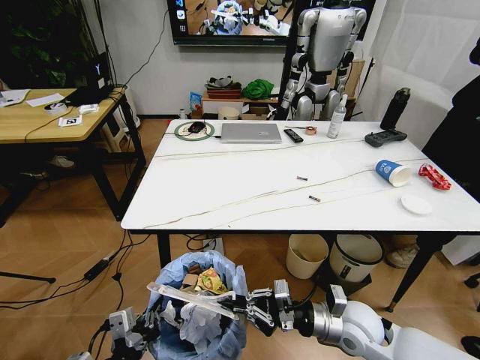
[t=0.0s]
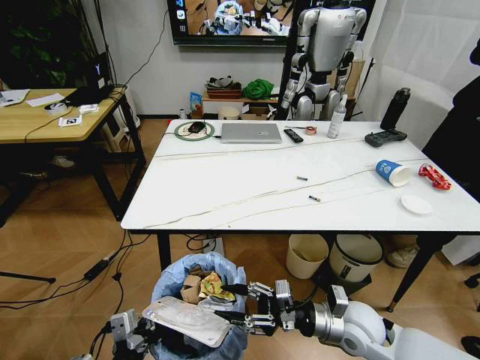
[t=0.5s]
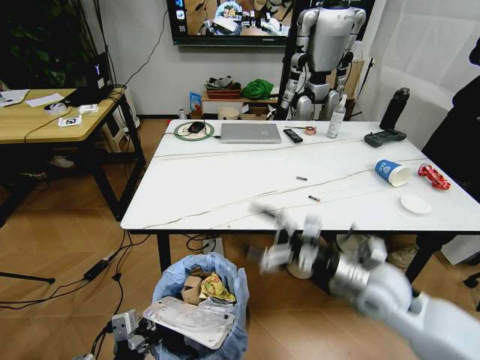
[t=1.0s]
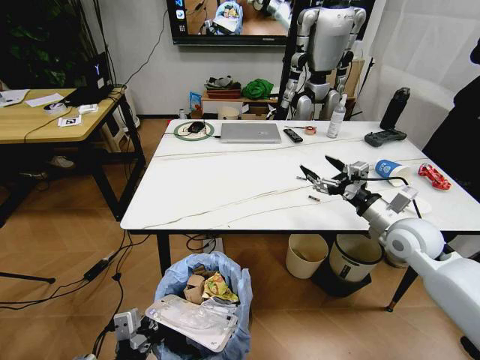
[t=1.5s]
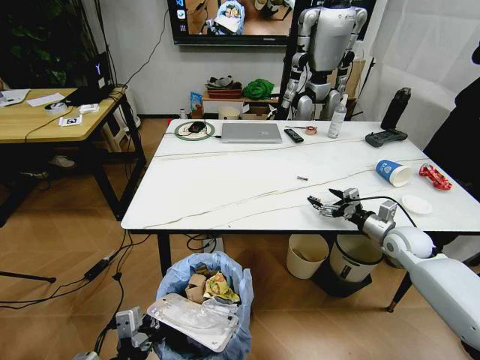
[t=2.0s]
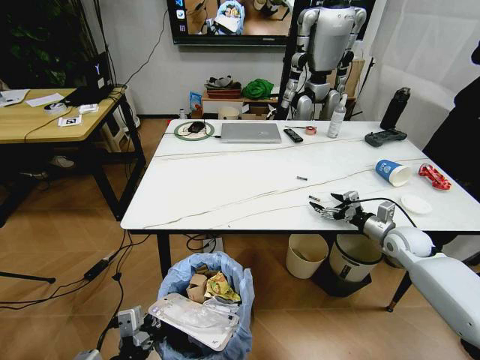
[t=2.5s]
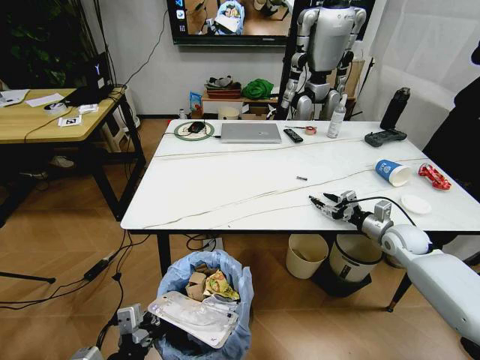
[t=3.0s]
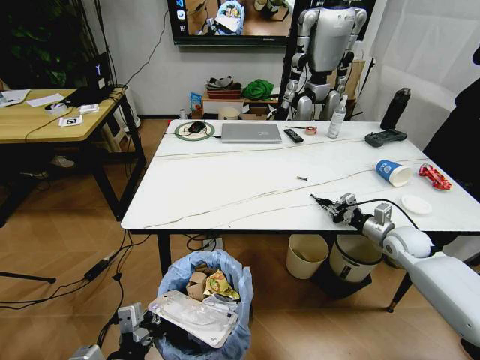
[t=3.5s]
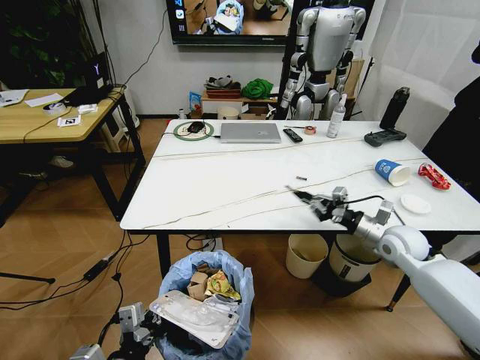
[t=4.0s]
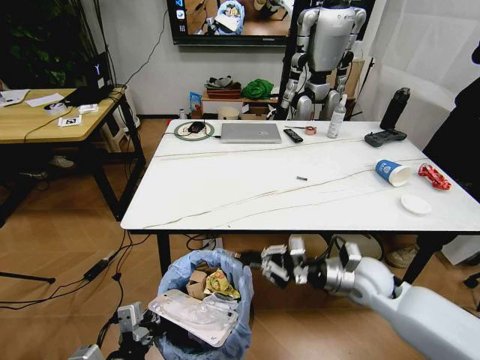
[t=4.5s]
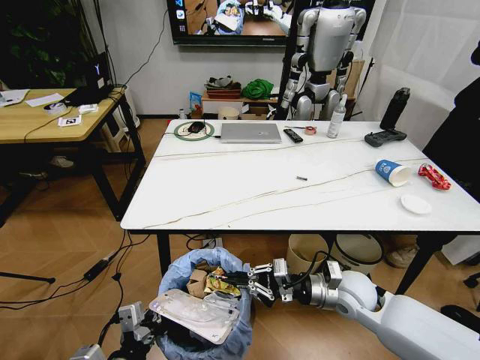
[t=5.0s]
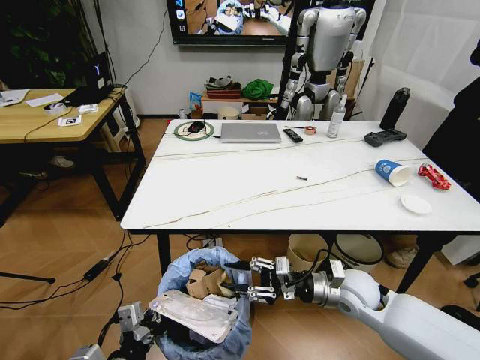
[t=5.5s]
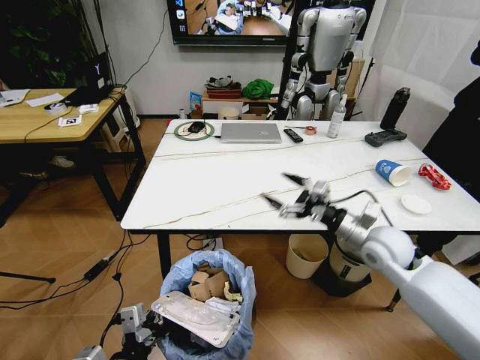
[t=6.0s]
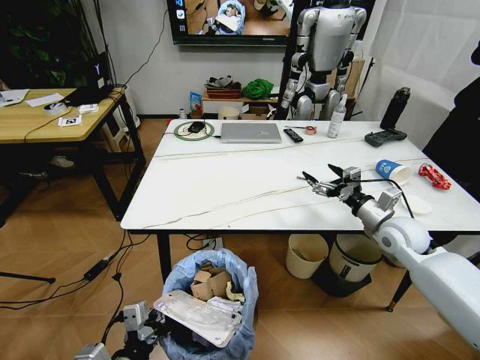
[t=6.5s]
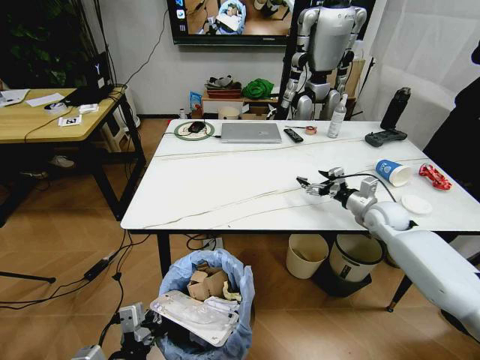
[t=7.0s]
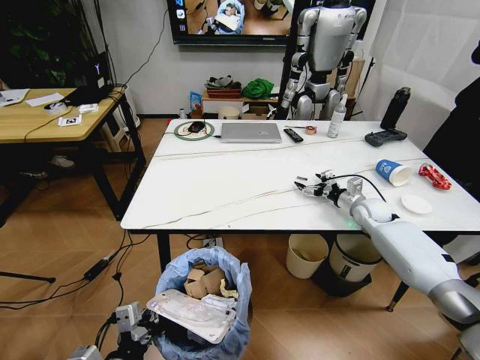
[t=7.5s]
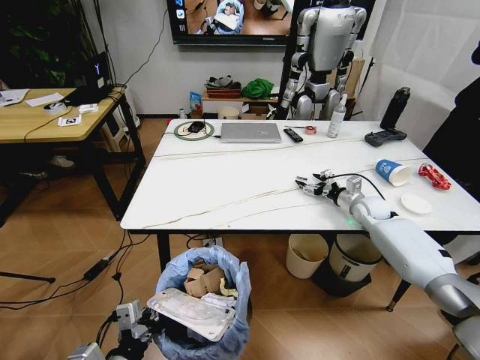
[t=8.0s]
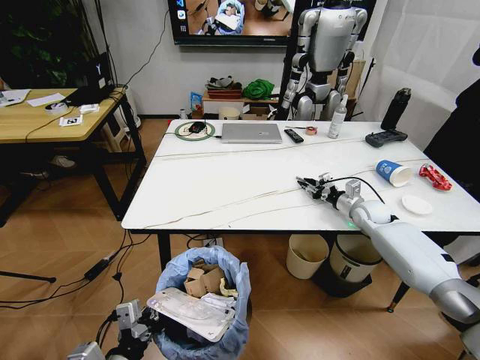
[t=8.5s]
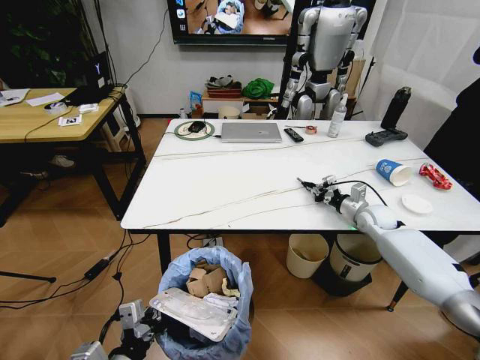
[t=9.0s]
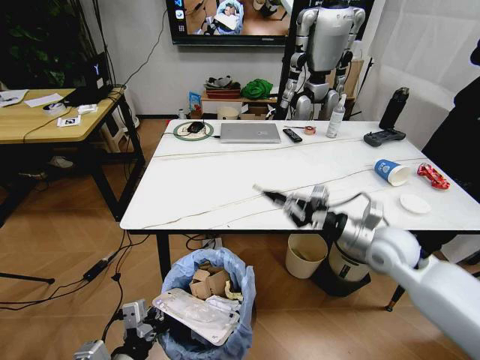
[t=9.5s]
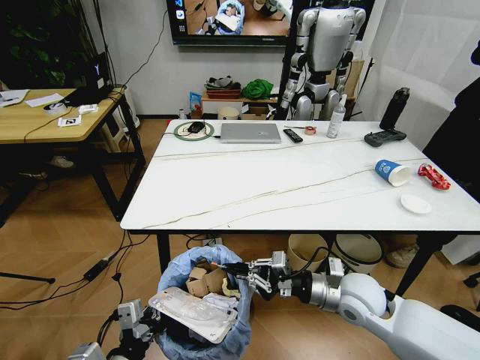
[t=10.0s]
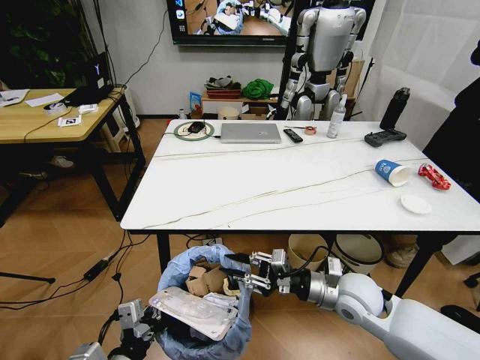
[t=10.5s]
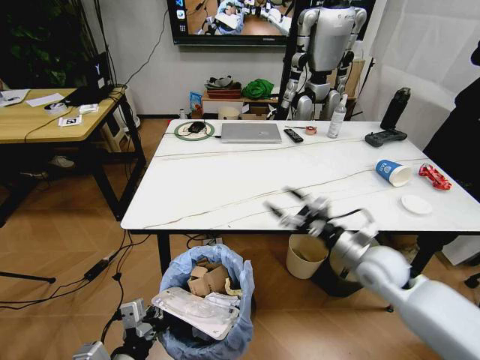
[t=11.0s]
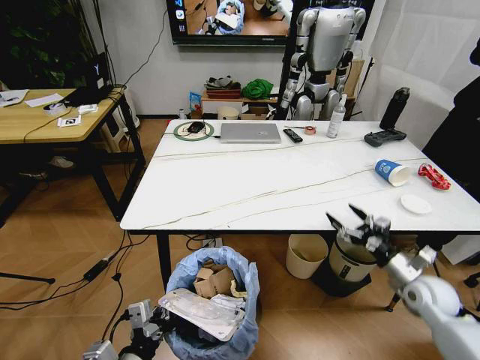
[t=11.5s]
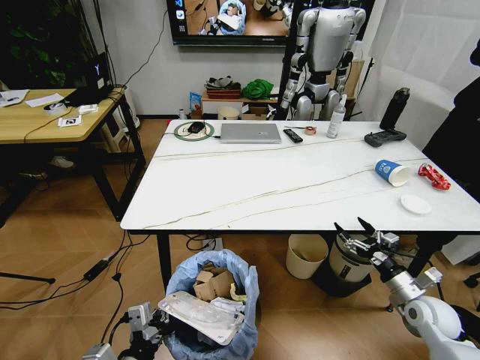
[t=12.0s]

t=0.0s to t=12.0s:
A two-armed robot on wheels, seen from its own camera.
Task of the whole recording: Pick up the trash bin and place the trash from the table into it.
t=0.0s to t=2.0s: The right gripper shifts roughly 25 cm to the right and forward, and opens up.
t=2.0s to t=4.0s: The right gripper moves to the left, approximately 5 cm, and closes up.
t=4.0s to t=6.0s: The right gripper travels to the left by some 5 cm, and opens up.
t=6.0s to t=8.0s: The right gripper heads forward, to the right and downward, covering approximately 20 cm.
t=8.0s to t=10.0s: The right gripper heads backward and to the left, covering some 30 cm, and closes its fingers.
t=10.0s to t=12.0s: The right gripper heads to the right and downward, covering some 20 cm, and opens.

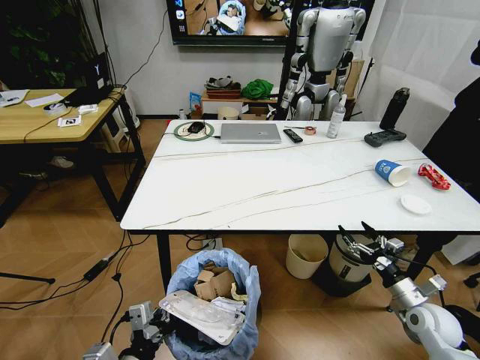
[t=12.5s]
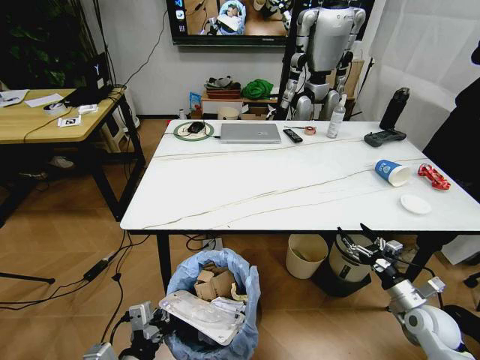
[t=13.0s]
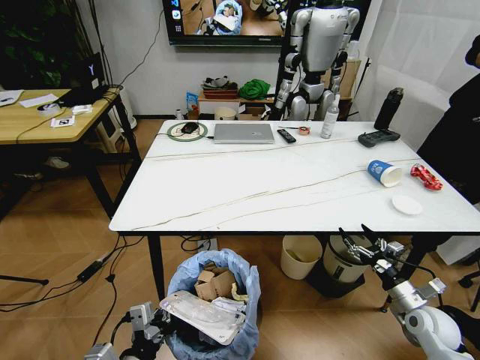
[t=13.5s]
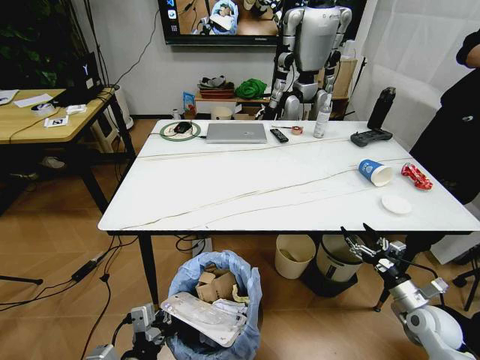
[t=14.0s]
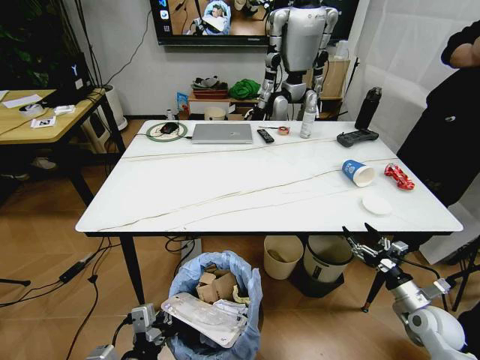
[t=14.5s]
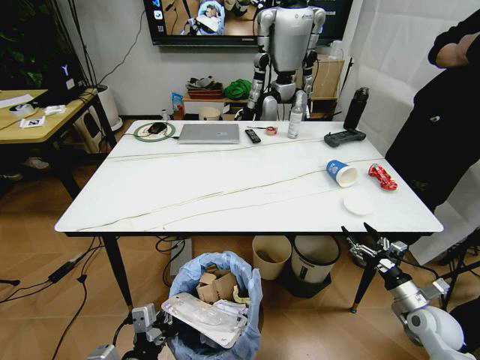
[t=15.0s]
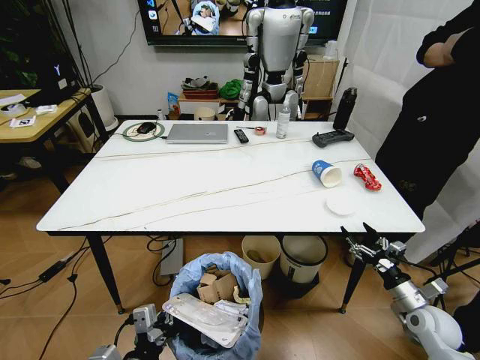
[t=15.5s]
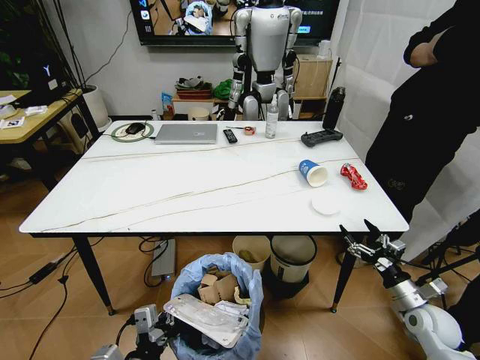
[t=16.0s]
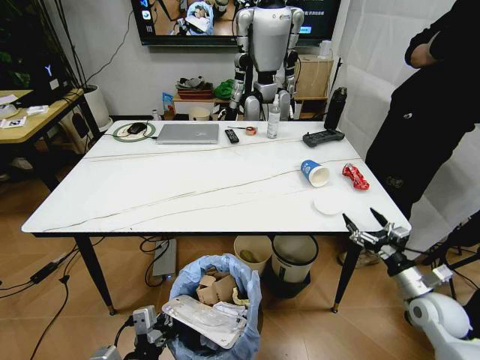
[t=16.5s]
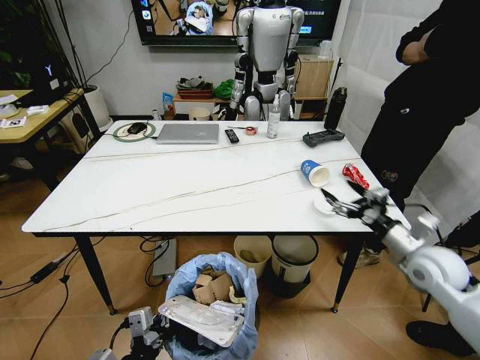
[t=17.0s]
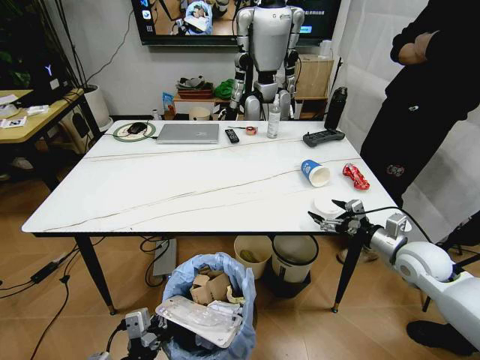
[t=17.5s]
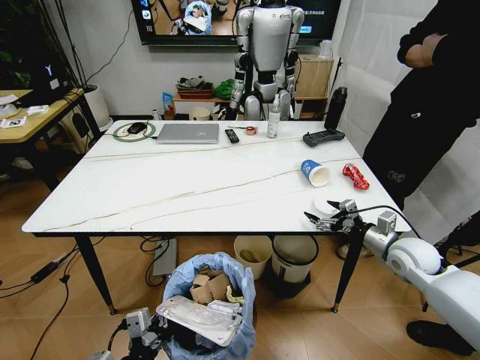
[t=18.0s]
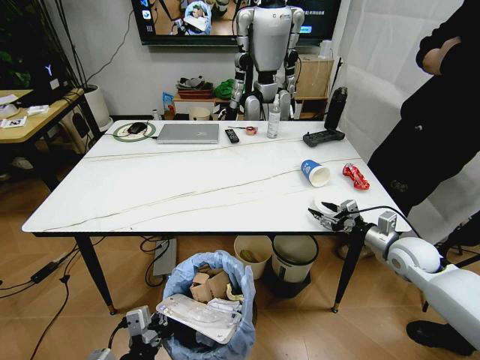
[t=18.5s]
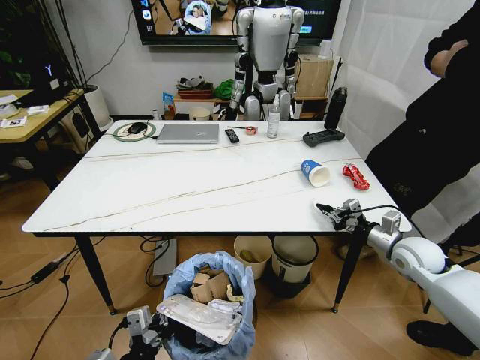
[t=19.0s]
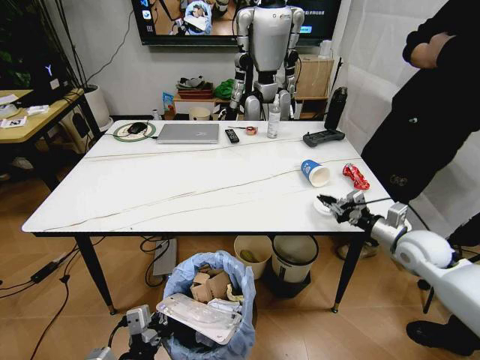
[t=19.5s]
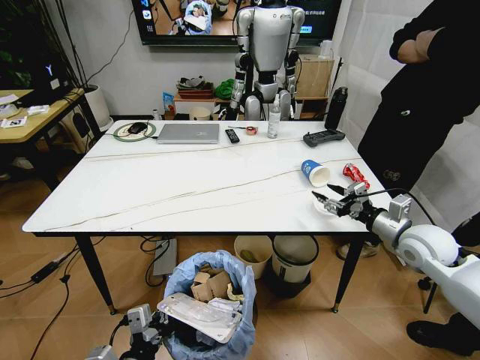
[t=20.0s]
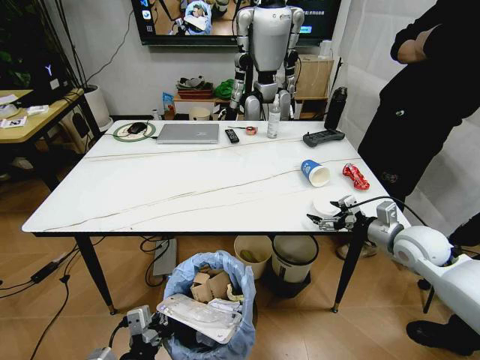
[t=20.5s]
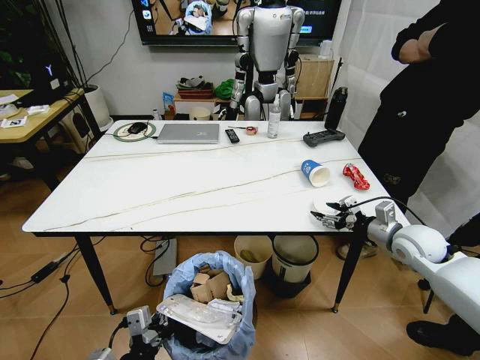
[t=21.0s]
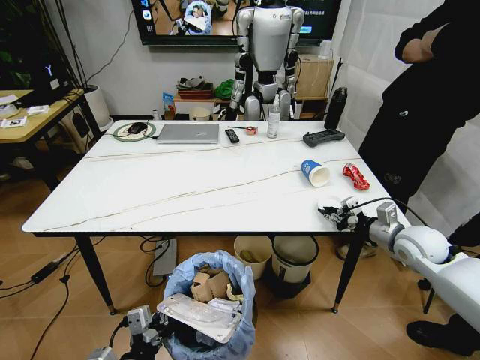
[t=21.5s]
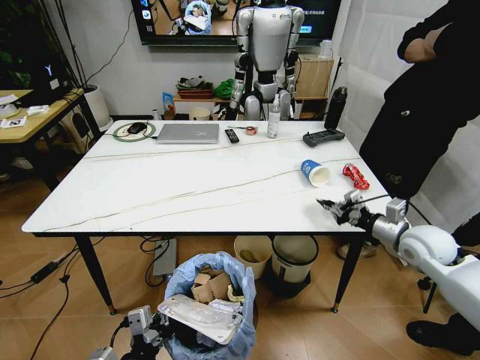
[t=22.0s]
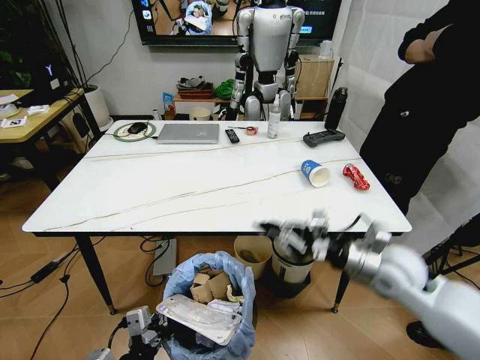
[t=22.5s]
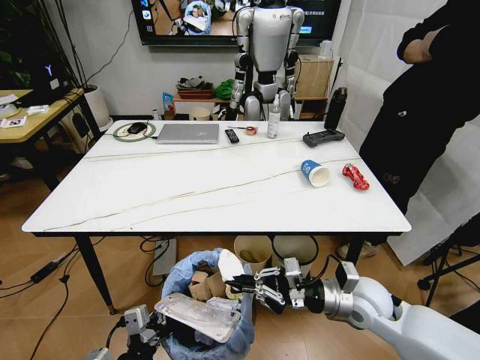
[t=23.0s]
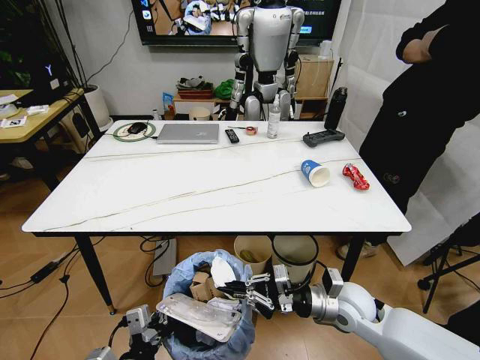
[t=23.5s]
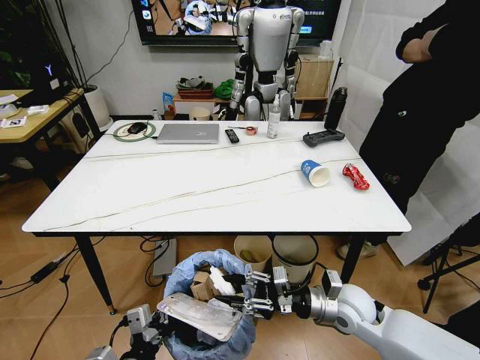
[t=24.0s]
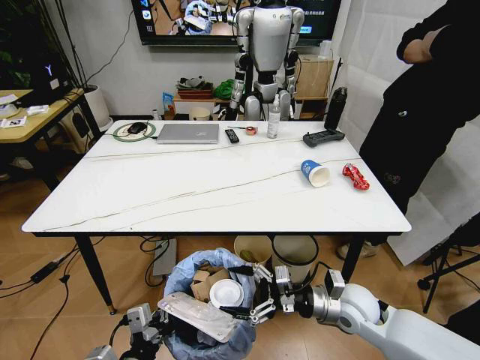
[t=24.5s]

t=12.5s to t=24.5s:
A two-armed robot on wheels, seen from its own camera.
Task of the whole recording: Pick up the trash bin and place the trash from the table into it.
t=14.5s to t=16.5s: The right gripper is displaced upward by about 5 cm.
t=16.5s to t=18.5s: The right gripper moves forward and upward, some 10 cm, and closes.
t=18.5s to t=20.5s: The right gripper travels upward by some 5 cm, and opens.
t=20.5s to t=22.5s: The right gripper is displaced to the left by some 10 cm, and closes its fingers.
t=22.5s to t=24.5s: The right gripper goes approximately 10 cm downward and to the left, and opens.

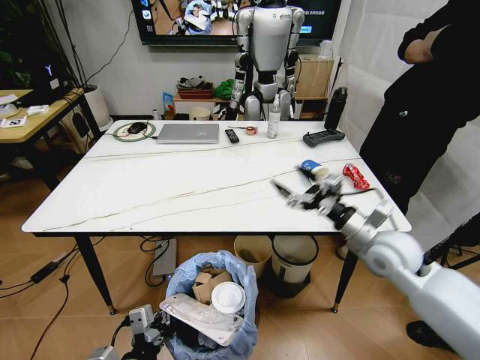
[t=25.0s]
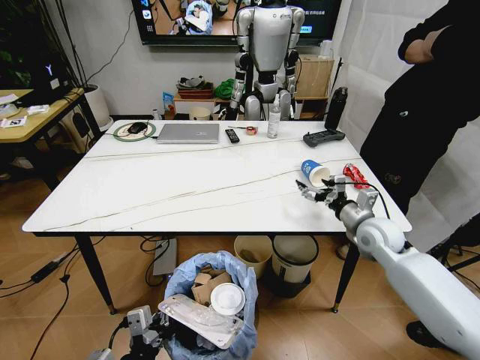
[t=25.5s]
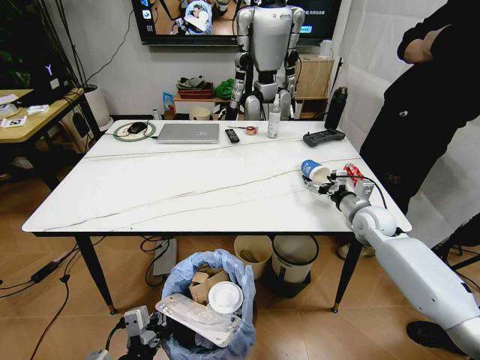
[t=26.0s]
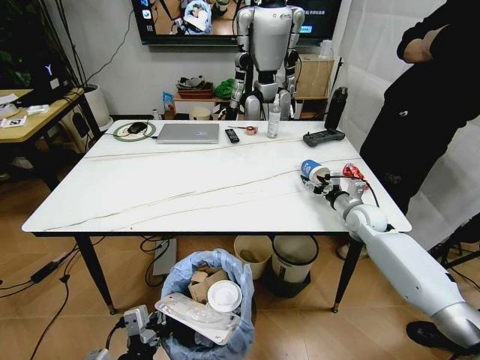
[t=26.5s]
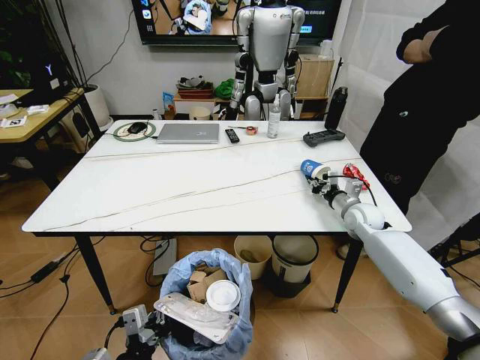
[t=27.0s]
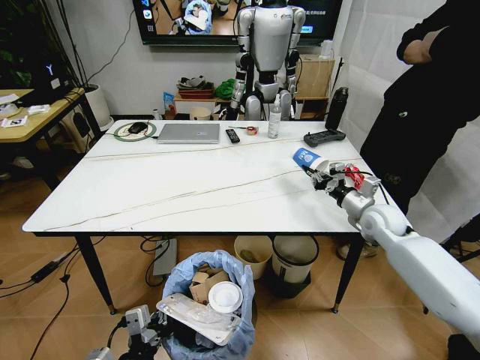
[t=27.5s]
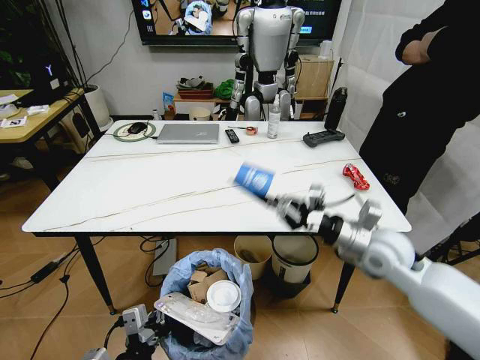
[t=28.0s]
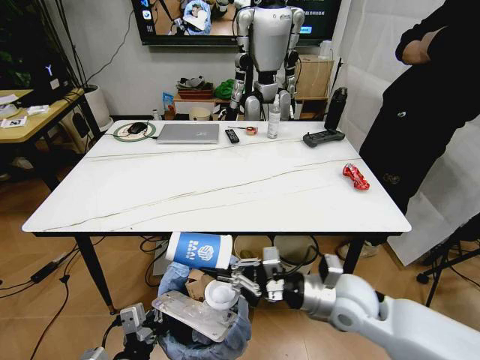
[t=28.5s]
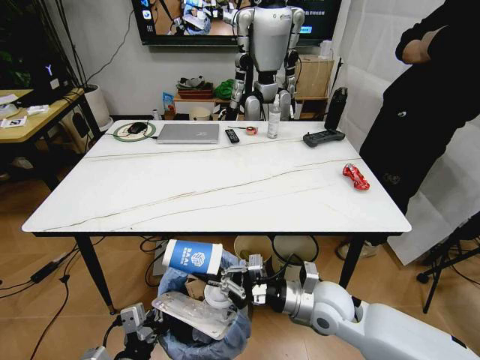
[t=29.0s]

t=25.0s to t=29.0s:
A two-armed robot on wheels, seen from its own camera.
Task of the whole recording: Pick up the trash bin and place the trash from the table into it.
t=25.0s to t=27.0s: The right gripper goes about 20 cm forward and downward, and closes its fingers.
t=27.0s to t=29.0s: The right gripper heads backward and to the left, covering about 30 cm.
